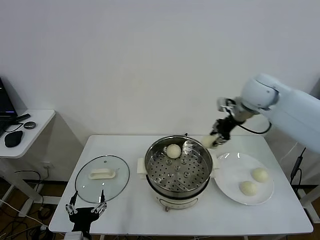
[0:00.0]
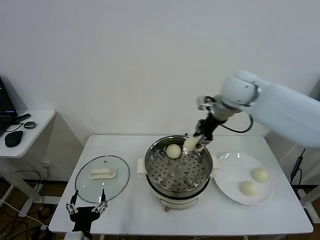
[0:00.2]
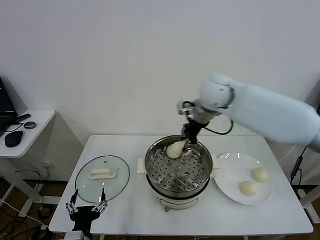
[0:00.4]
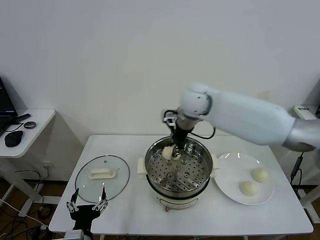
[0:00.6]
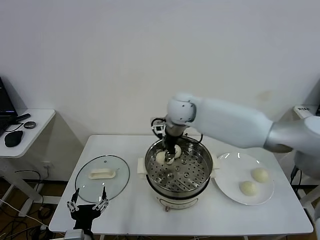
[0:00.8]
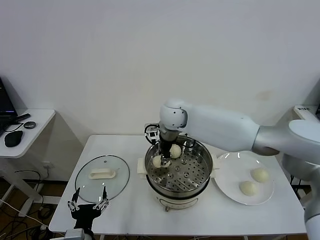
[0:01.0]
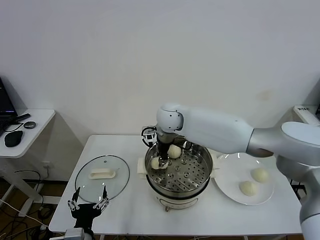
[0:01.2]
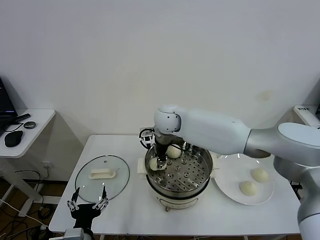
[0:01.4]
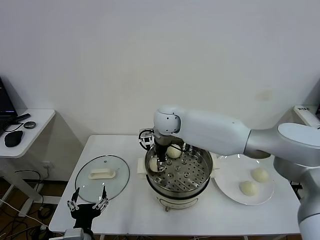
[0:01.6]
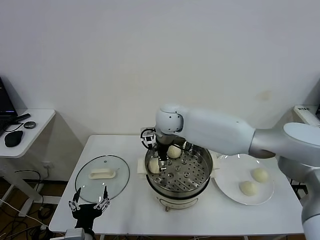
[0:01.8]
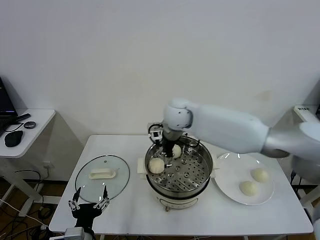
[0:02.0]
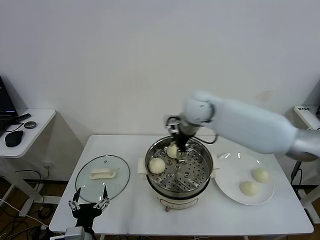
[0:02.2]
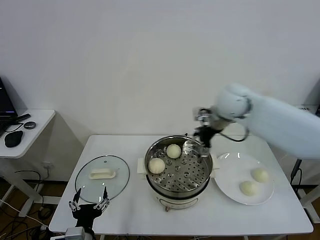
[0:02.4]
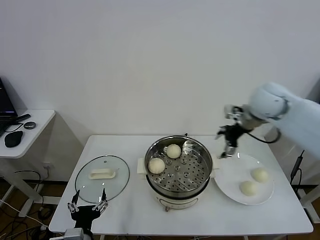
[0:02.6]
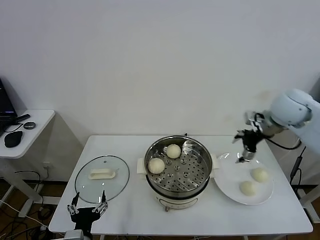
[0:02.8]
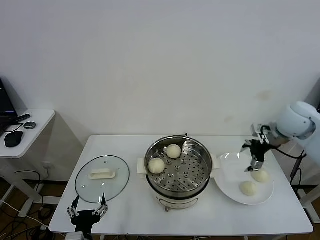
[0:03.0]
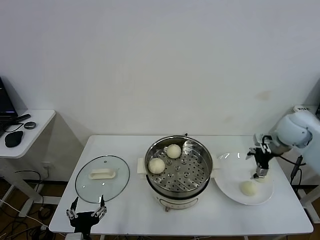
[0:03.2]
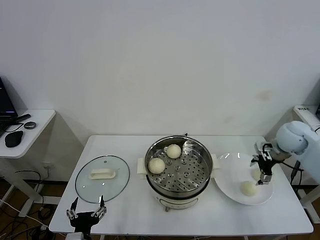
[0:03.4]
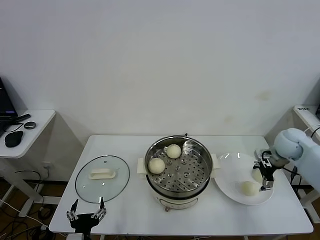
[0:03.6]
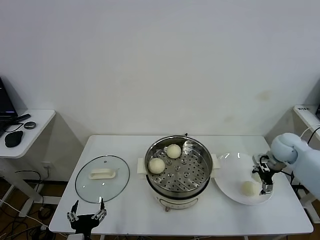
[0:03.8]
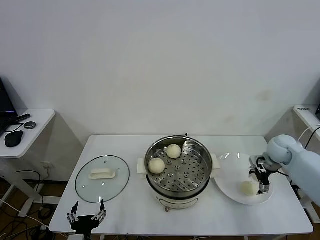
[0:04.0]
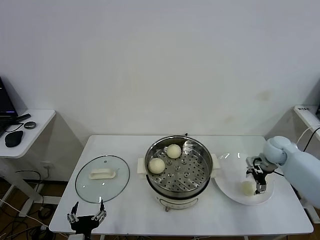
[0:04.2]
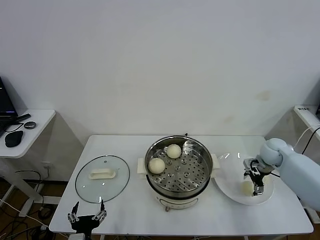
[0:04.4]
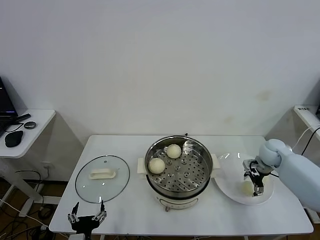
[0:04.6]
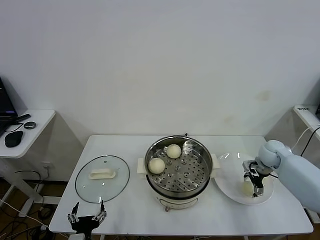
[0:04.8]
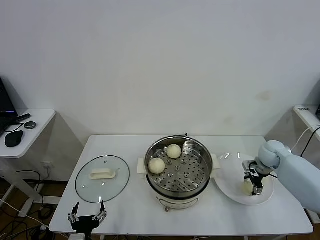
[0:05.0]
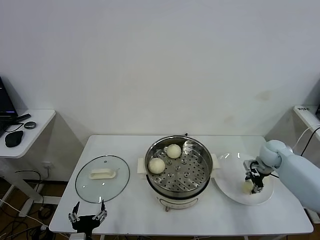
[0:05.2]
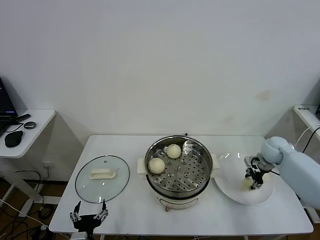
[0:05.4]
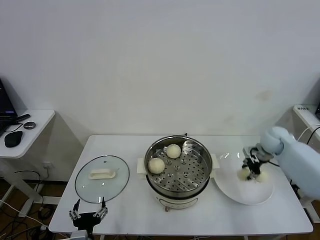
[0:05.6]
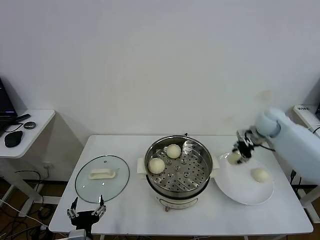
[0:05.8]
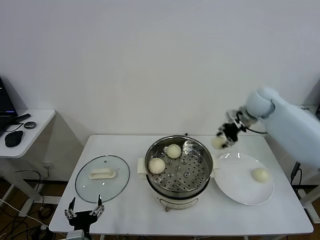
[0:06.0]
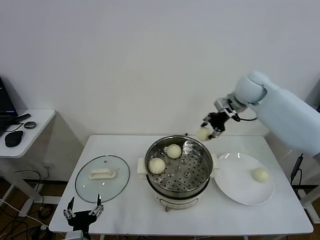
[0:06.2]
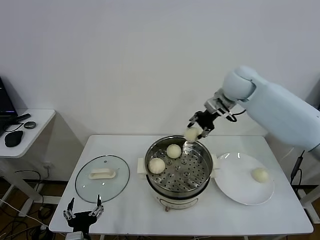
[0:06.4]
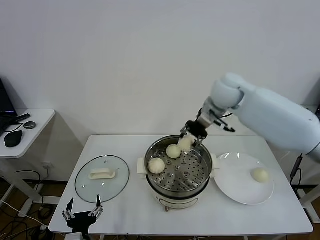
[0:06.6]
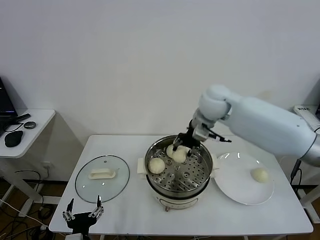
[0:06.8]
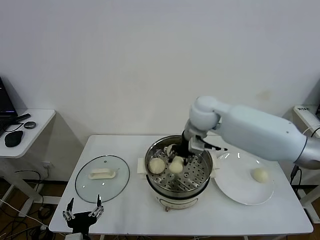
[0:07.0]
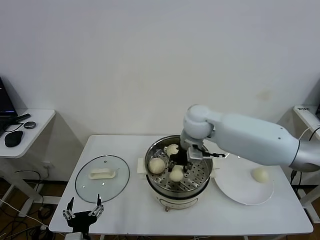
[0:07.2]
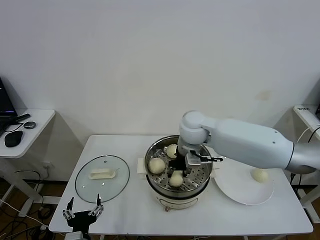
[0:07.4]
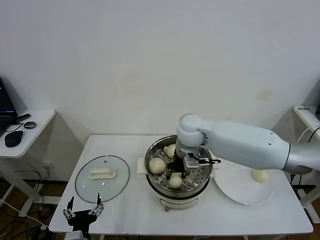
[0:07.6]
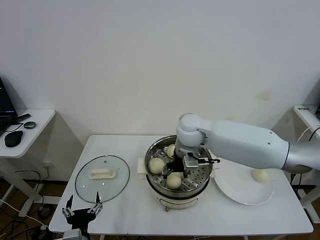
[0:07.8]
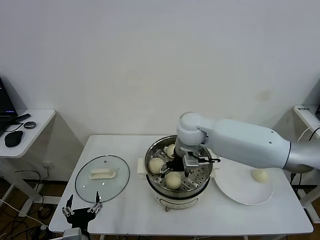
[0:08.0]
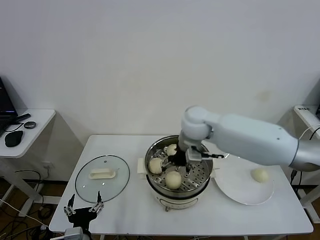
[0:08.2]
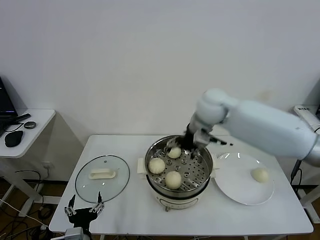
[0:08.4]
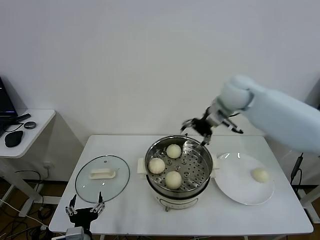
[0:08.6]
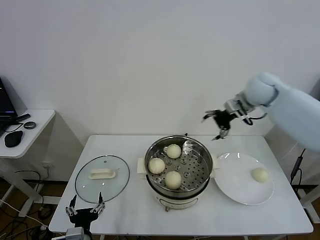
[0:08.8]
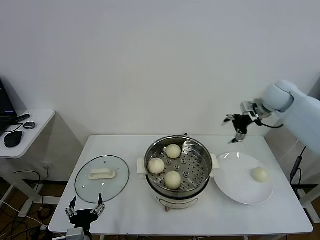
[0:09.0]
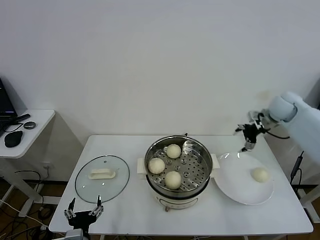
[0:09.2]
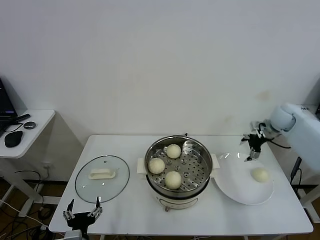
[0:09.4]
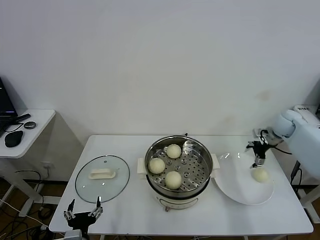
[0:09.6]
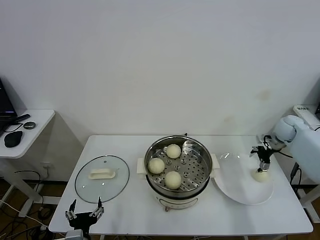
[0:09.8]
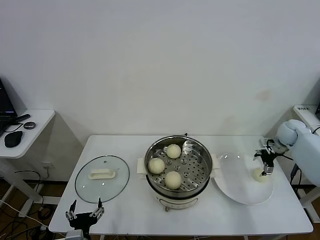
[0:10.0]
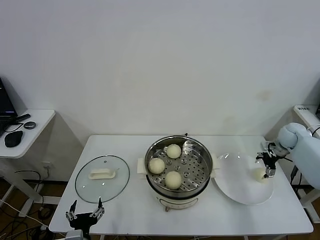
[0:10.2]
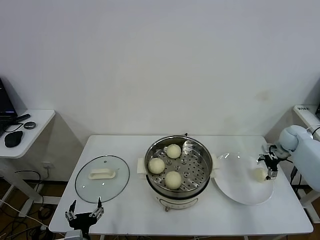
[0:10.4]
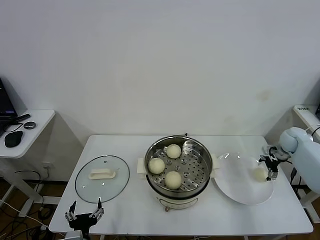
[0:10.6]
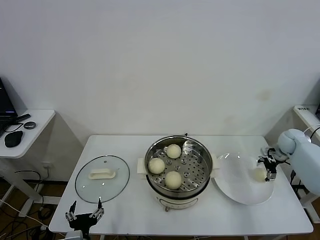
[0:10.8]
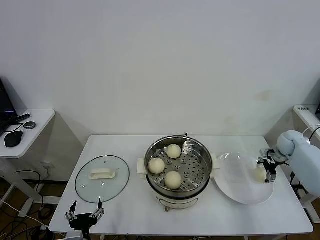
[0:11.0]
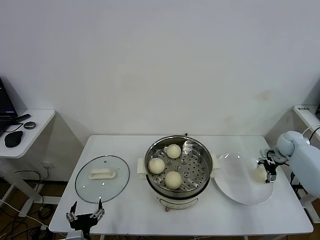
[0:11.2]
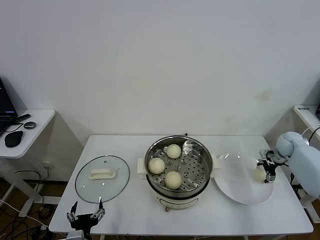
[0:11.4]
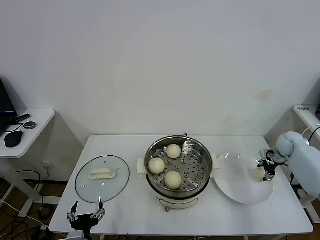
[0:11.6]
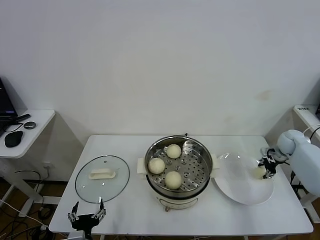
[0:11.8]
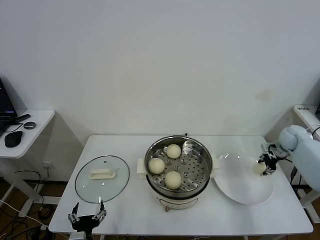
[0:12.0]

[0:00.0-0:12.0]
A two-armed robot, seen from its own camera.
Task of the whole recording: take steamed baozi put them in steamer.
Step, 0:00.0 to 0:01.6: Place the baozi on the steamer with right gripper.
Step, 0:02.0 to 0:05.0: Grasp the baozi in the plate with right gripper.
Step, 0:05.2 to 0:08.2: Place the baozi on the steamer with right gripper.
Step, 0:08.4 to 0:11.6: Grasp the baozi in the plate with right gripper.
0:00.0 to 0:01.6: The right gripper goes approximately 25 cm to the left and downward, and opens its fingers.
0:01.6 to 0:03.0: The right gripper is displaced to the right by approximately 35 cm, and opens.
0:03.0 to 0:04.4: The right gripper travels downward by roughly 20 cm.
0:04.4 to 0:06.0: The right gripper heads upward and to the left, covering roughly 20 cm, and closes its fingers.
0:06.0 to 0:07.6: The right gripper goes some 25 cm to the left and backward.
0:07.6 to 0:09.0: The right gripper shifts some 30 cm to the right, and opens up.
0:09.0 to 0:10.4: The right gripper heads downward and to the right, covering roughly 20 cm.

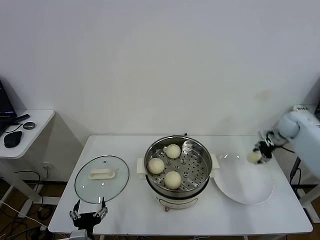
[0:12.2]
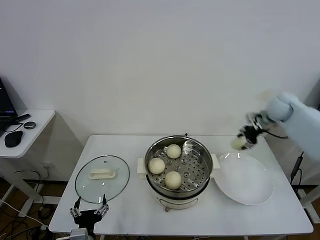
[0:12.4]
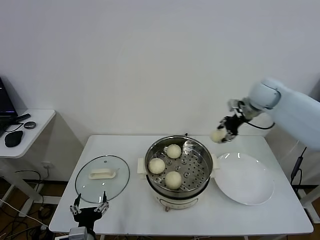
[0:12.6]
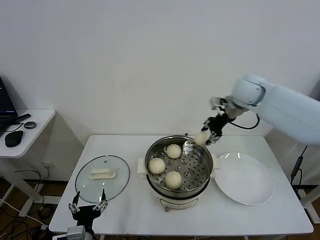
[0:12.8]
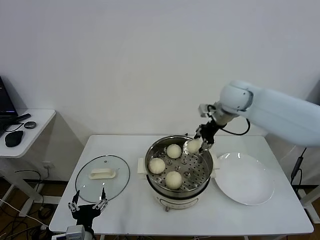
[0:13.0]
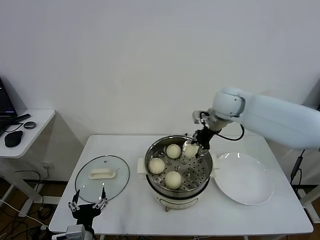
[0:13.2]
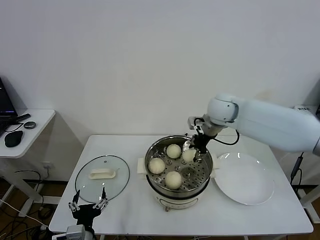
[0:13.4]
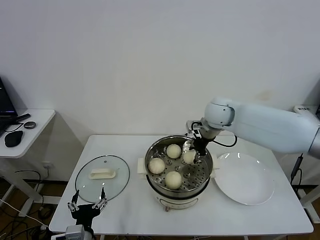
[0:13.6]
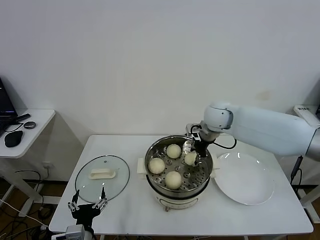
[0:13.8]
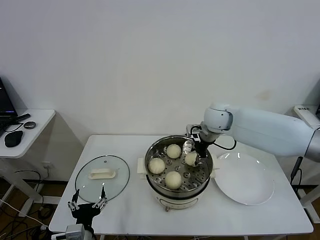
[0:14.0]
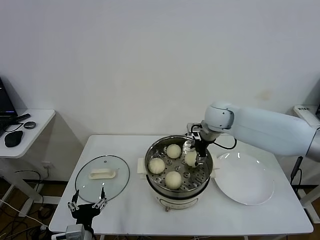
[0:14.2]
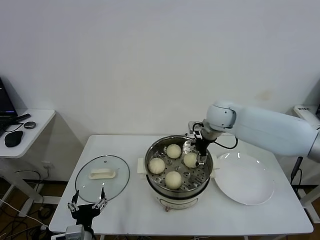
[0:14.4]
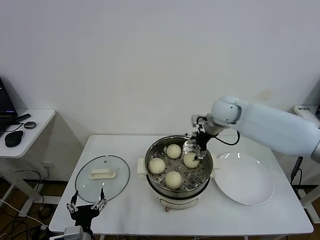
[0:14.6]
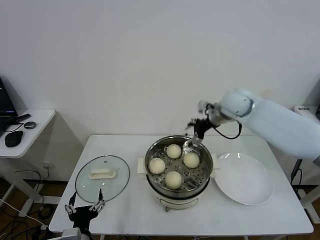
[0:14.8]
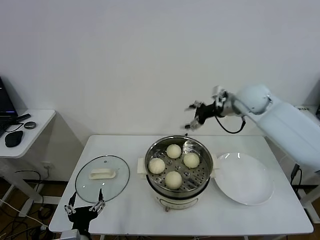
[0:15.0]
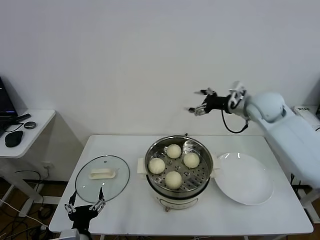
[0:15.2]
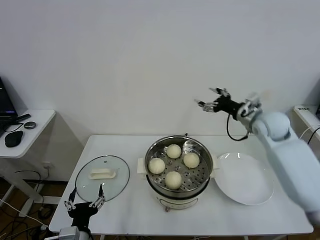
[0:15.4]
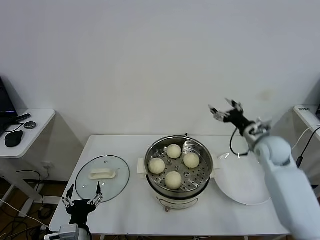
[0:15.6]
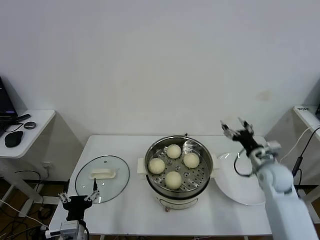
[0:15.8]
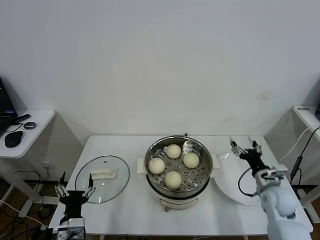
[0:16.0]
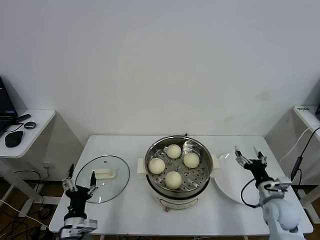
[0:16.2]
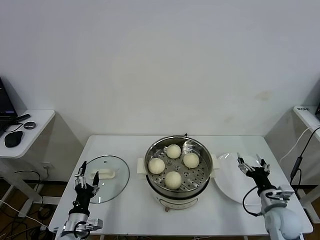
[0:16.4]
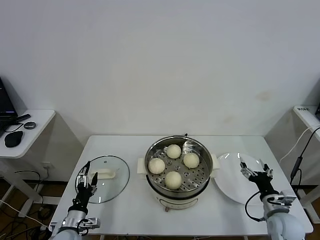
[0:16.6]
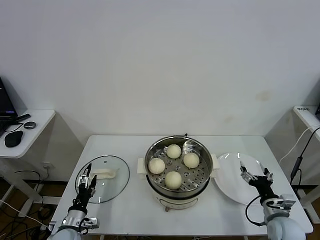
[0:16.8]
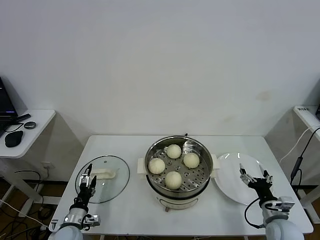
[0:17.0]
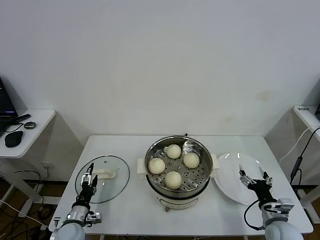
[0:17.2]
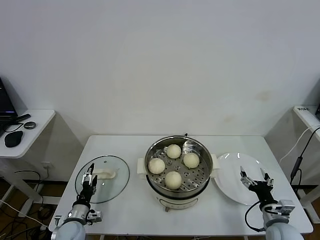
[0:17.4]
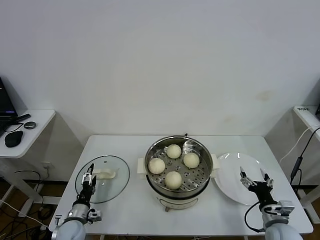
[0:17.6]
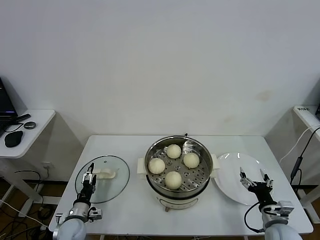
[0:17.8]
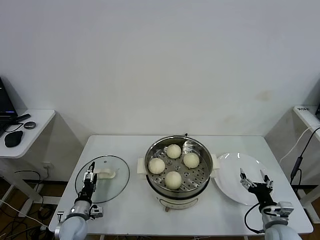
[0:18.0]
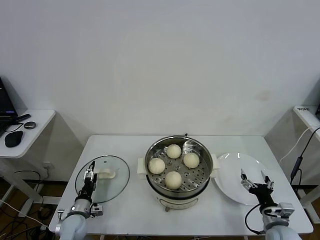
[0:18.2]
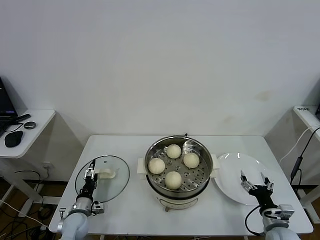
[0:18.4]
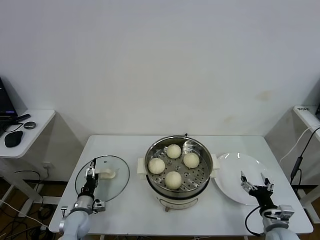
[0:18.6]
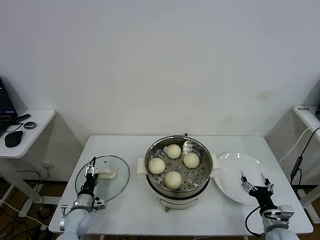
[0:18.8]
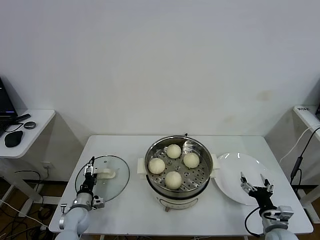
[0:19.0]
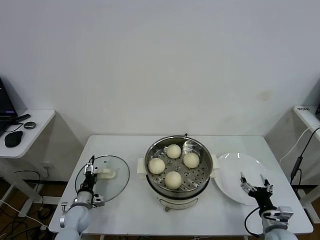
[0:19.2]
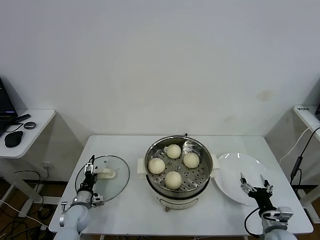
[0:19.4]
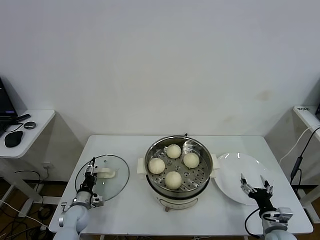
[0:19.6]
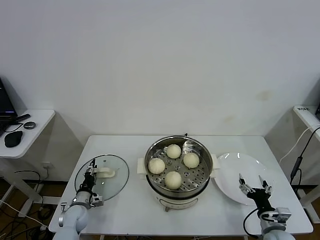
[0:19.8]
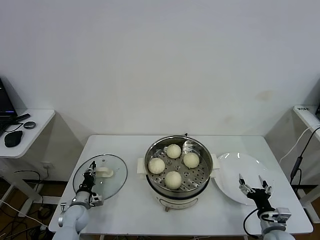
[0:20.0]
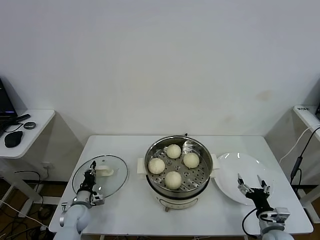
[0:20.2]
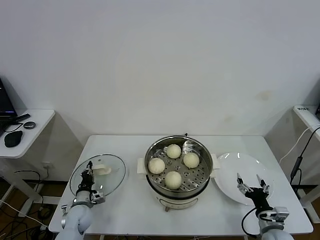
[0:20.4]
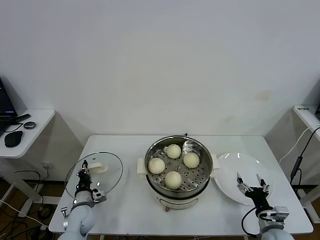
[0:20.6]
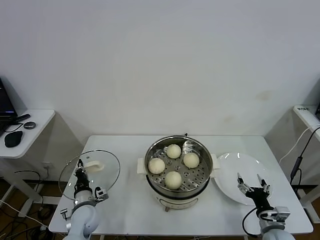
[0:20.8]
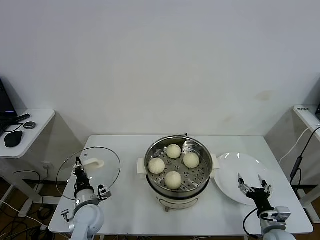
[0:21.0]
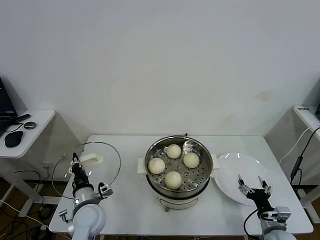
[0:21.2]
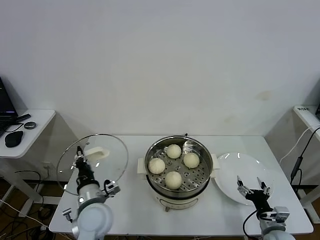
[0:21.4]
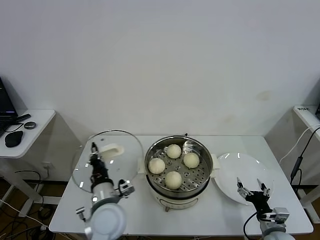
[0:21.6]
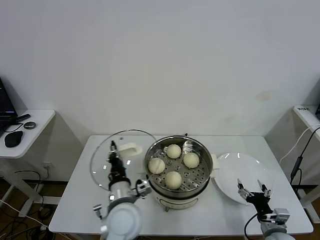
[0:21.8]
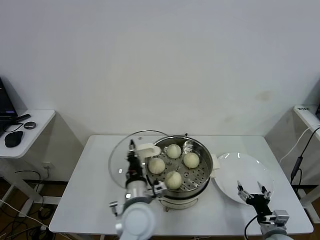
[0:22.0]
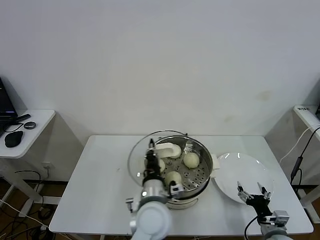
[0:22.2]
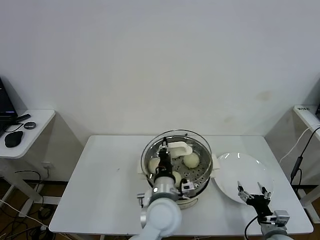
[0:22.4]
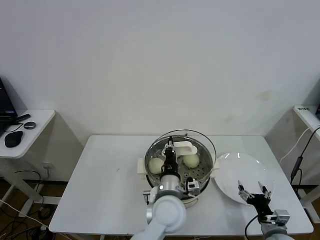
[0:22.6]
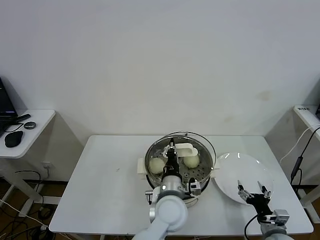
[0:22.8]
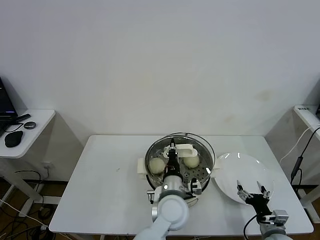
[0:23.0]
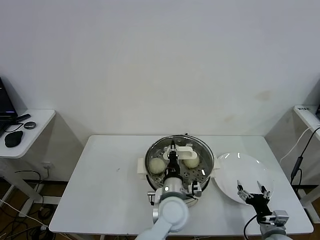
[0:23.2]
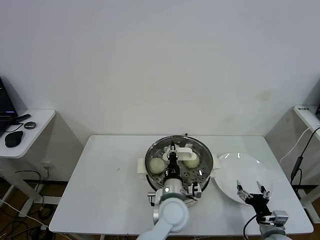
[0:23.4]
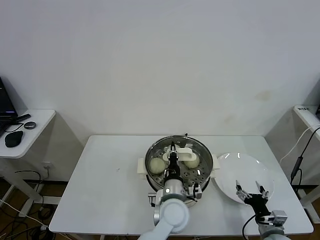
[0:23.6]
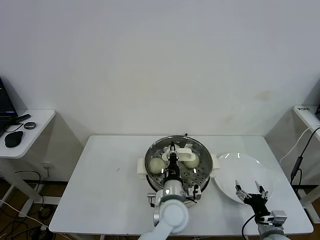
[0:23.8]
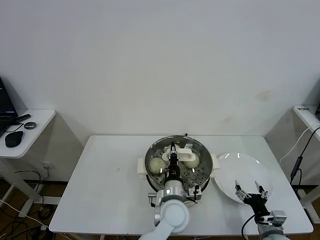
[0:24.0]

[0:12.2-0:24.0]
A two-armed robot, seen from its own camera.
Task of the whole recording: take steamed baozi put them in steamer.
Step, 0:12.2 to 0:14.6: Place the baozi on the steamer with right gripper.
Step, 0:14.8 to 0:20.2: Grasp the pot lid with left gripper.
0:12.2 to 0:13.6: The right gripper travels to the left by roughly 30 cm.
0:13.6 to 0:15.2: The right gripper shifts some 15 cm to the right, and opens up.
0:15.2 to 0:16.6: The right gripper goes some 40 cm downward and backward. Meanwhile the left gripper heads downward, forward and to the left, covering roughly 15 cm.
0:16.6 to 0:18.2: The left gripper travels forward and downward by roughly 10 cm.
0:18.2 to 0:19.6: The grippers move only a little.
0:19.6 to 0:21.0: The left gripper shifts about 10 cm upward and to the right, and closes.
0:21.0 to 0:22.6: The left gripper heads to the right and upward, covering about 30 cm.
0:22.6 to 0:24.0: The left gripper heads downward, covering some 5 cm.
